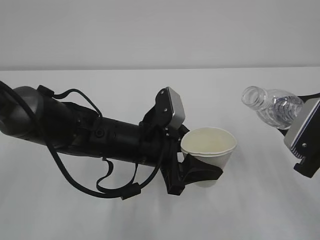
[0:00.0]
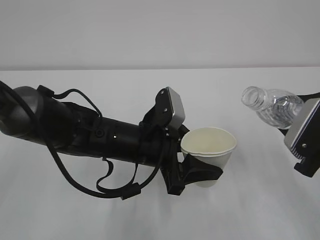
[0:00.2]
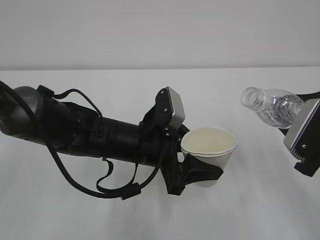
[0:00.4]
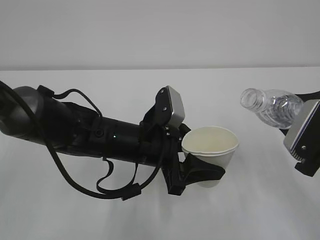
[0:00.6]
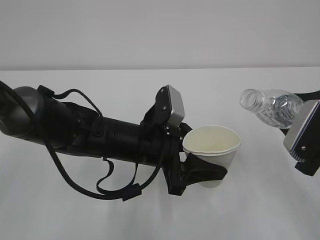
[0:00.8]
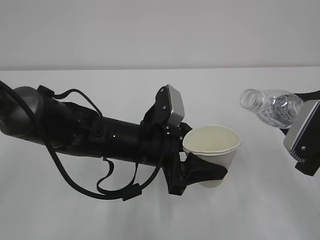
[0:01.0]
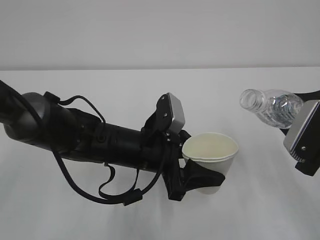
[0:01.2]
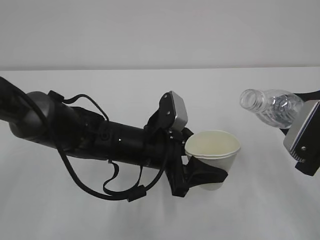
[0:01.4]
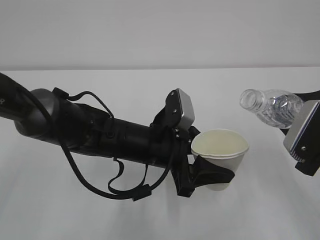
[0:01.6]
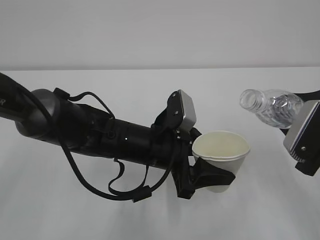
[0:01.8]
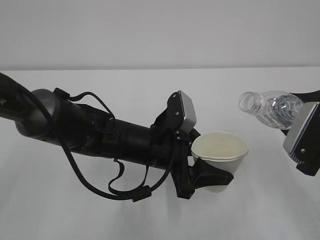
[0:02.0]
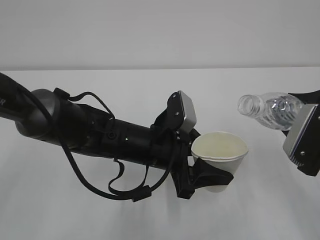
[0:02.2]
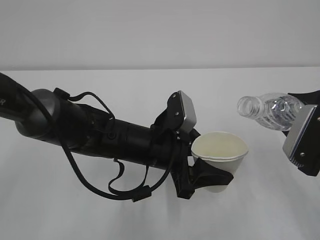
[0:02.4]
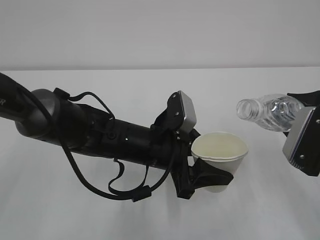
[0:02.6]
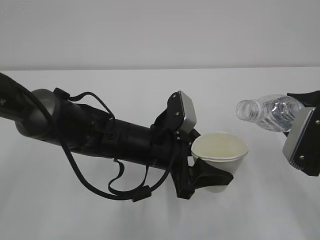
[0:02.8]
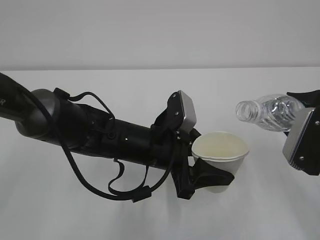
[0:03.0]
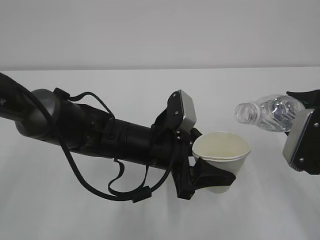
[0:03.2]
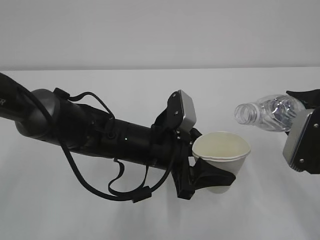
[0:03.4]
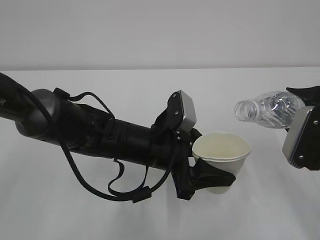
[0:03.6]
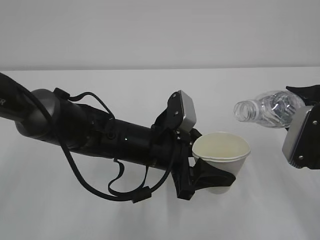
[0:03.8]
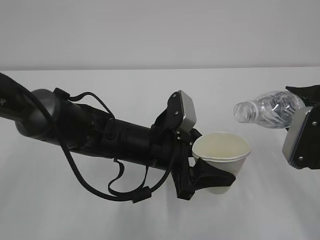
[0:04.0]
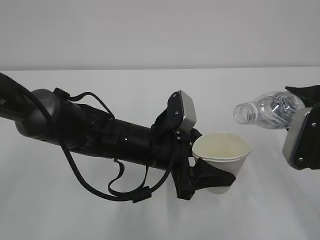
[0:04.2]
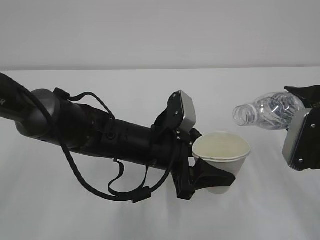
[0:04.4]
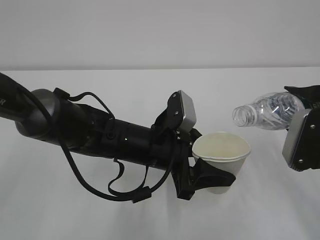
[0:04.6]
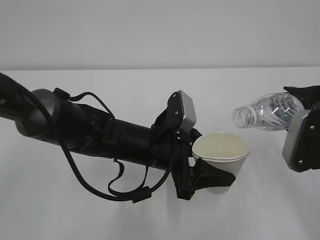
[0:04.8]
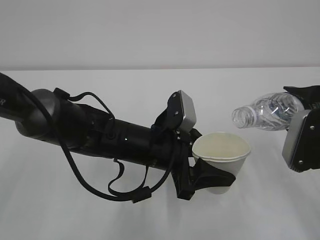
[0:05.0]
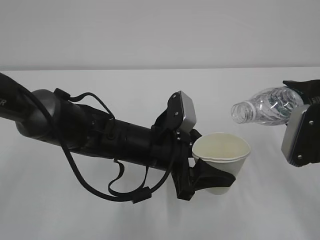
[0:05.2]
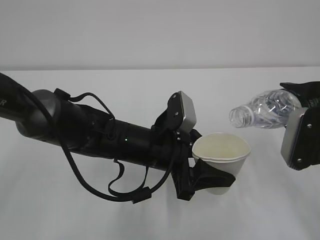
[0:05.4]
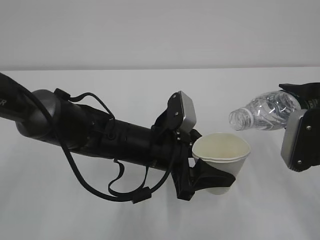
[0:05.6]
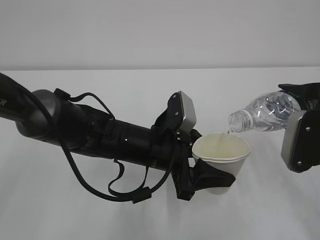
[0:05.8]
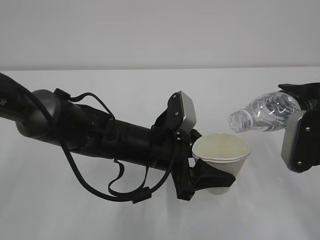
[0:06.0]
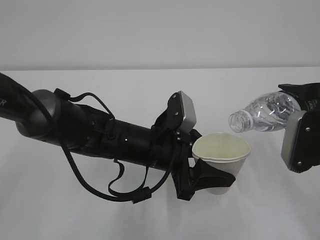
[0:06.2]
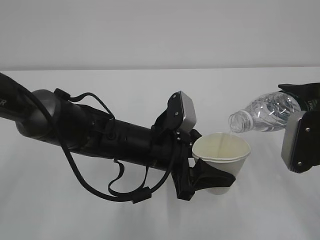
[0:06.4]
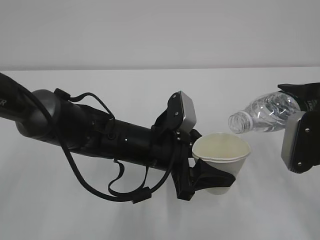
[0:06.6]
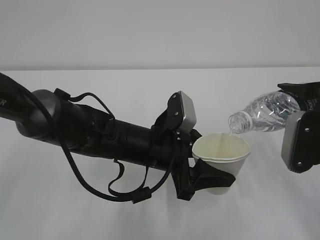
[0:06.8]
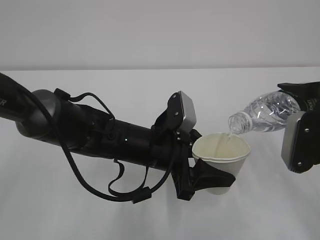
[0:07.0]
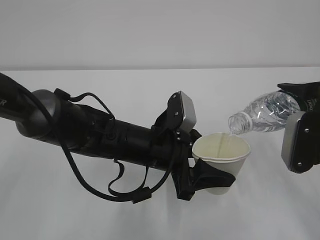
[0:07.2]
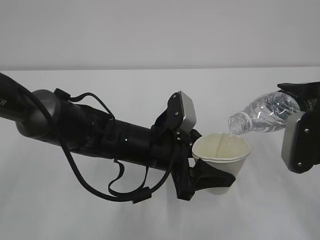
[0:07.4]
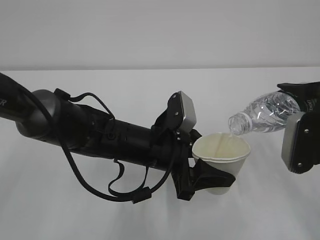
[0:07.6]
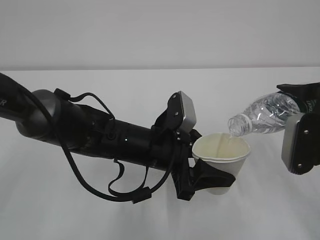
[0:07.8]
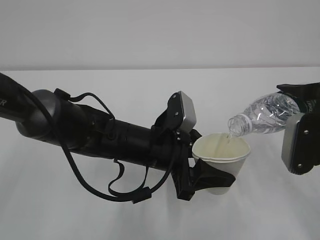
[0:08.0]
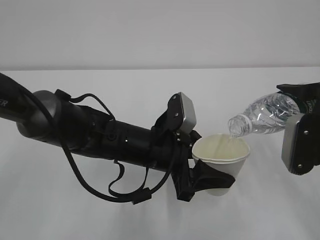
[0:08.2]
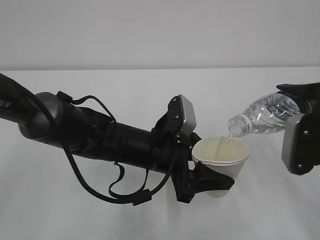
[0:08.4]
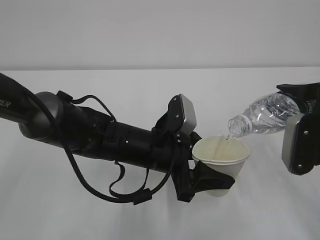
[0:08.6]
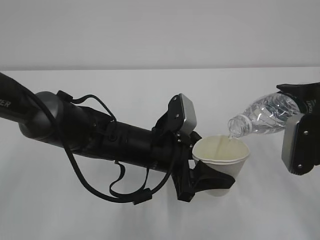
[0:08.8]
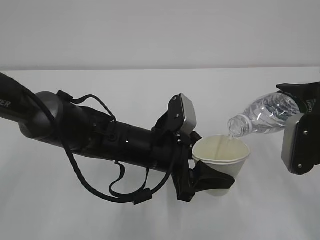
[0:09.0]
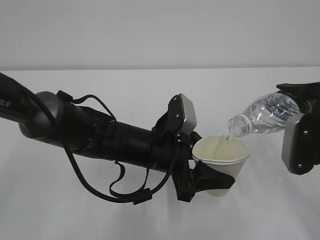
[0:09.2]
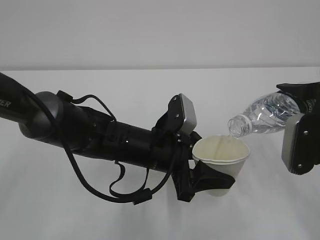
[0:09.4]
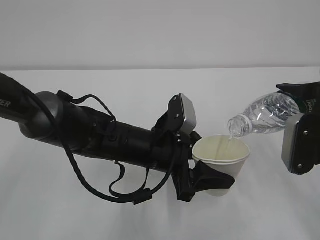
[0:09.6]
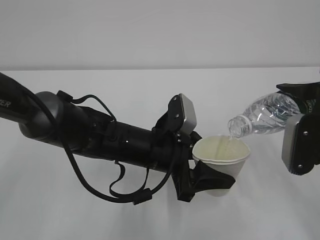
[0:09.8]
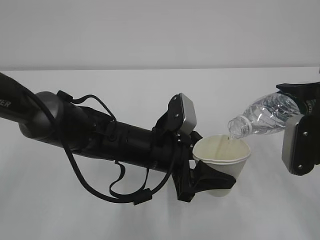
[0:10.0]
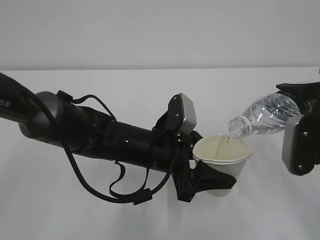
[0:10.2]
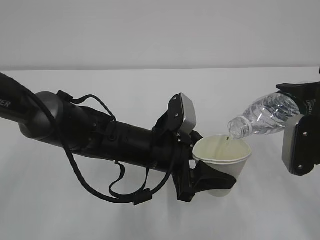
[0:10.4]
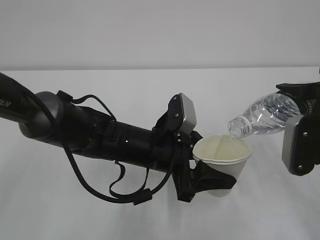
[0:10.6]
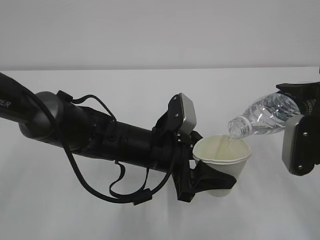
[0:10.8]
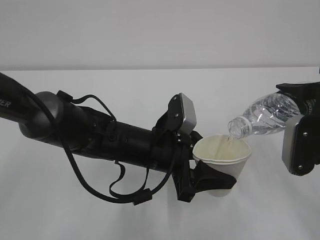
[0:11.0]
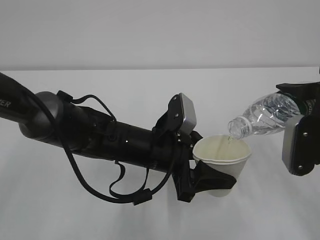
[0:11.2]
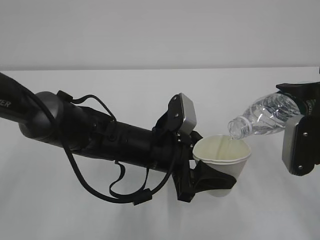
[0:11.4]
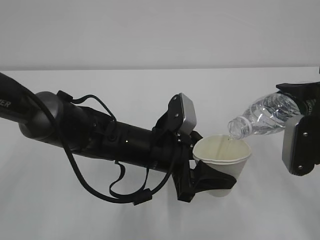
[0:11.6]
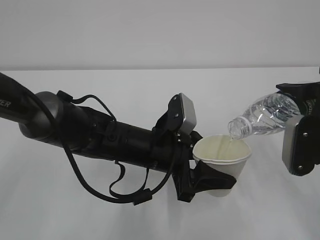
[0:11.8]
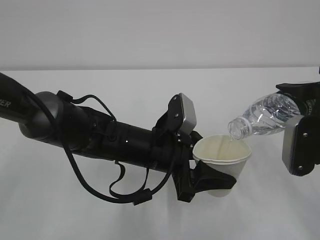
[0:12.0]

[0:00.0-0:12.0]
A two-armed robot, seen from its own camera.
0:00.0 to 0:03.0: There are only small adjustments of the grippers.
0:03.0 to 0:06.0: The grippers make only small movements.
0:06.0 to 0:09.0: Neither gripper changes place.
0:09.0 to 0:12.0: The two grippers keep their place.

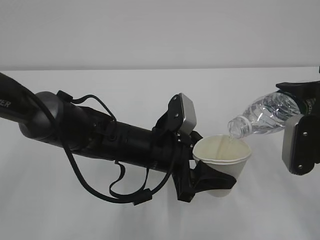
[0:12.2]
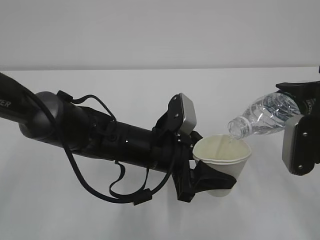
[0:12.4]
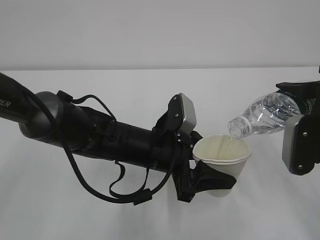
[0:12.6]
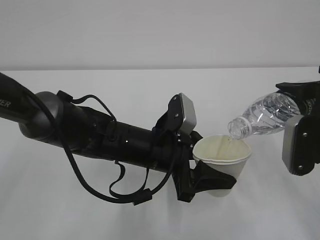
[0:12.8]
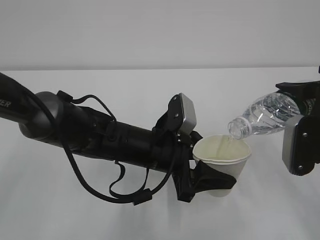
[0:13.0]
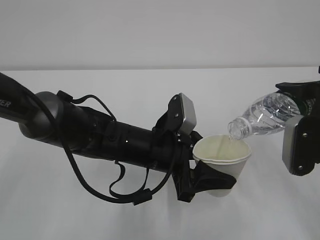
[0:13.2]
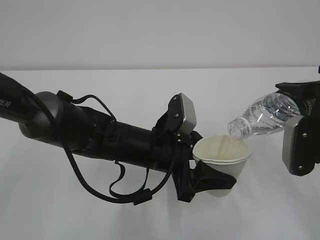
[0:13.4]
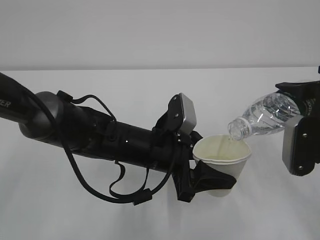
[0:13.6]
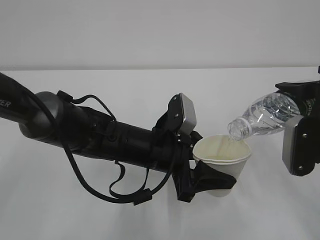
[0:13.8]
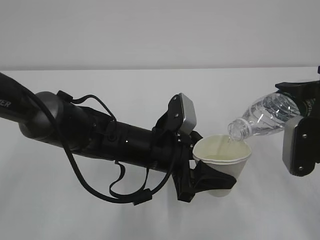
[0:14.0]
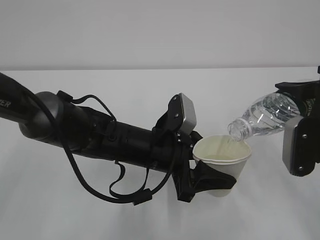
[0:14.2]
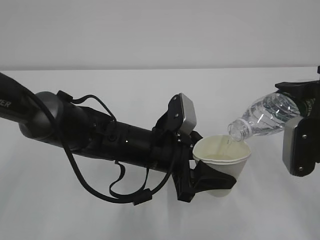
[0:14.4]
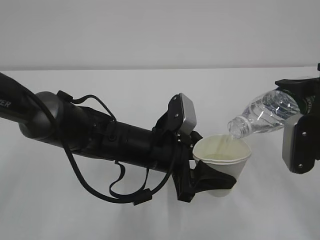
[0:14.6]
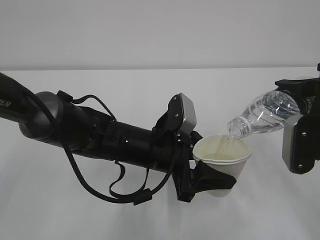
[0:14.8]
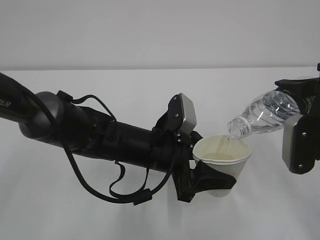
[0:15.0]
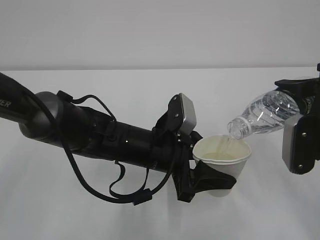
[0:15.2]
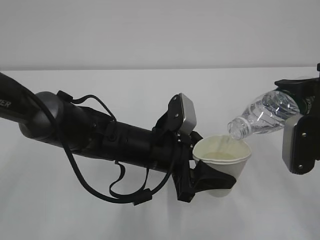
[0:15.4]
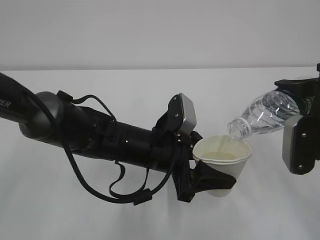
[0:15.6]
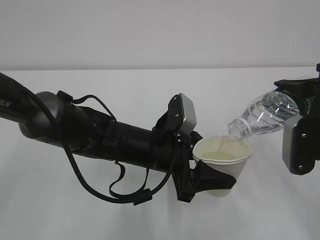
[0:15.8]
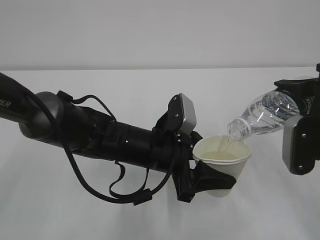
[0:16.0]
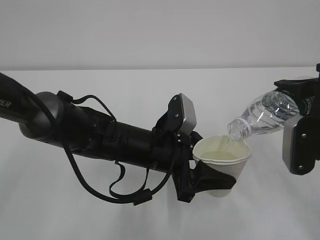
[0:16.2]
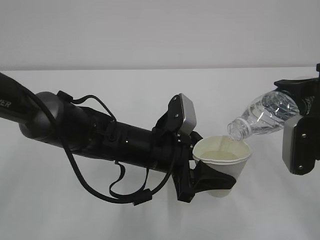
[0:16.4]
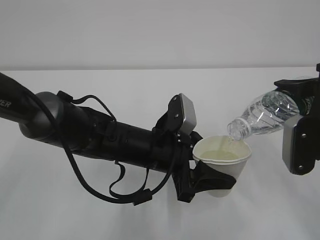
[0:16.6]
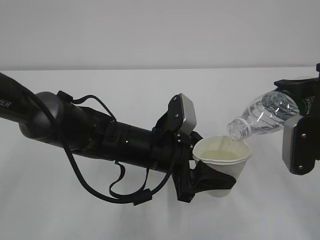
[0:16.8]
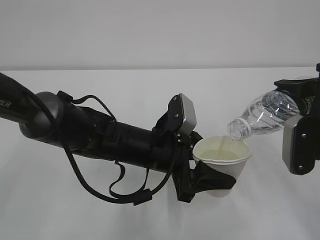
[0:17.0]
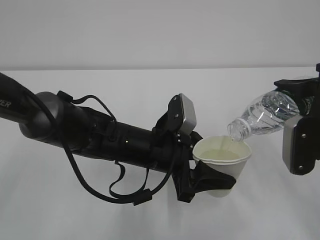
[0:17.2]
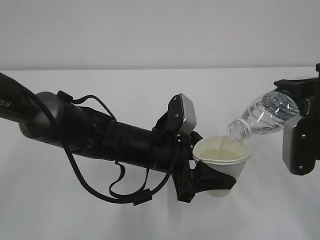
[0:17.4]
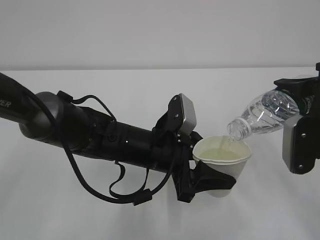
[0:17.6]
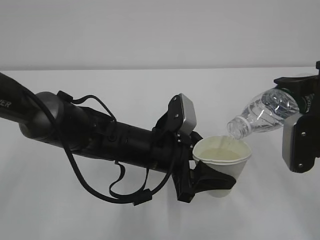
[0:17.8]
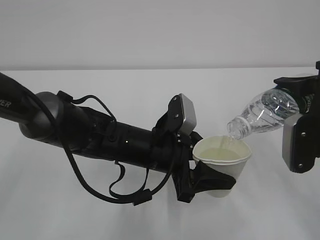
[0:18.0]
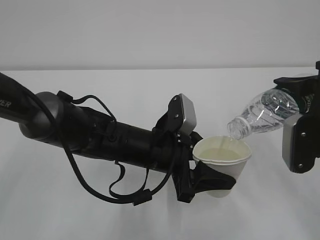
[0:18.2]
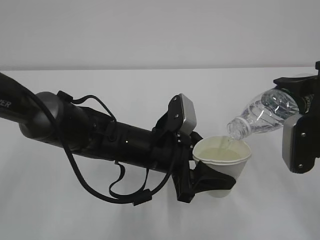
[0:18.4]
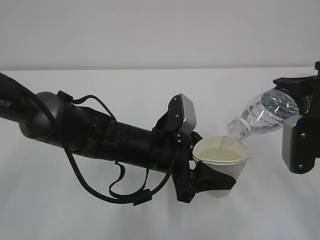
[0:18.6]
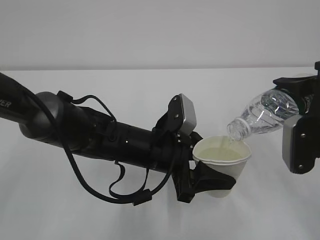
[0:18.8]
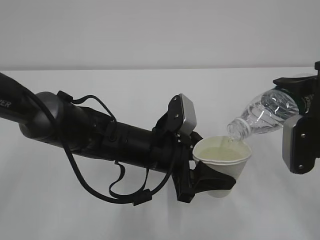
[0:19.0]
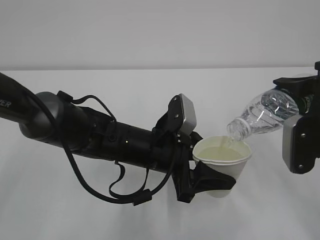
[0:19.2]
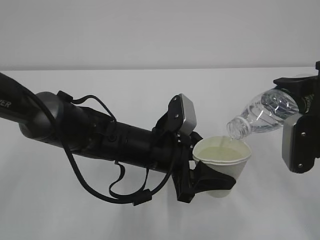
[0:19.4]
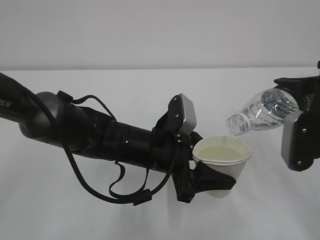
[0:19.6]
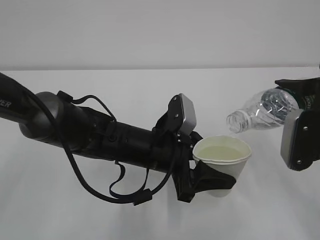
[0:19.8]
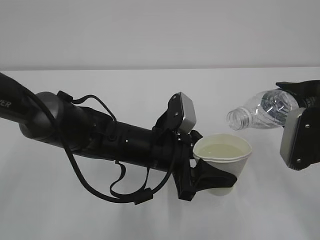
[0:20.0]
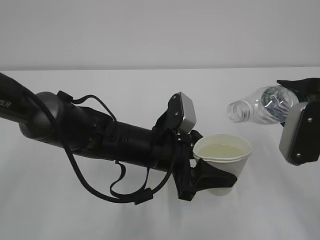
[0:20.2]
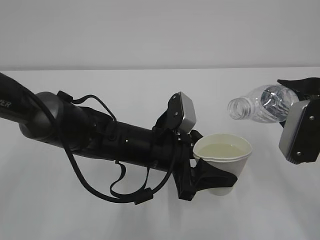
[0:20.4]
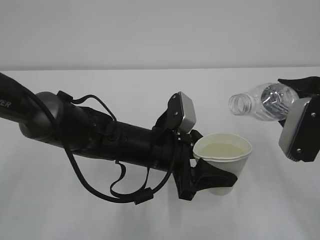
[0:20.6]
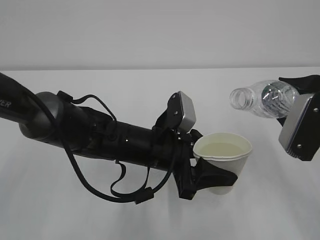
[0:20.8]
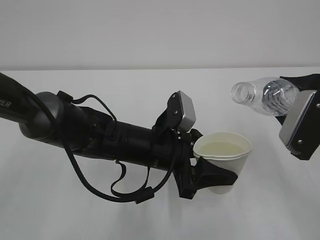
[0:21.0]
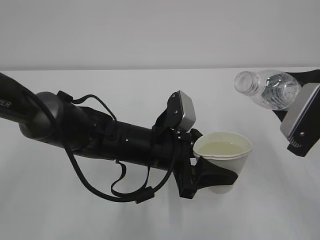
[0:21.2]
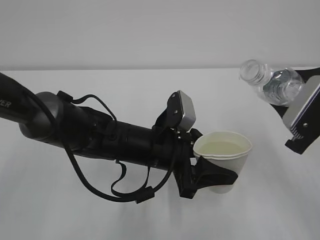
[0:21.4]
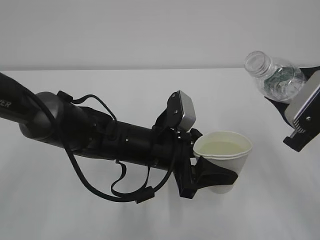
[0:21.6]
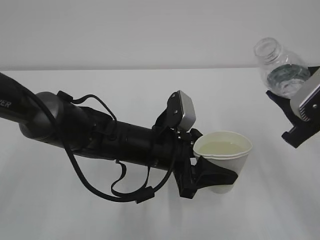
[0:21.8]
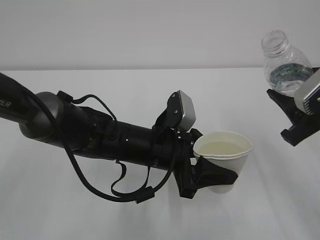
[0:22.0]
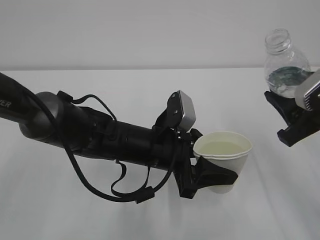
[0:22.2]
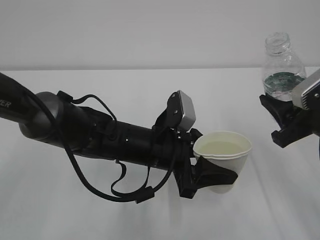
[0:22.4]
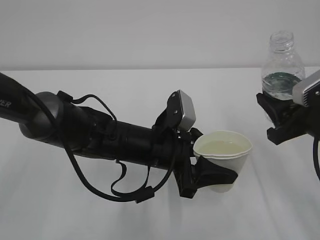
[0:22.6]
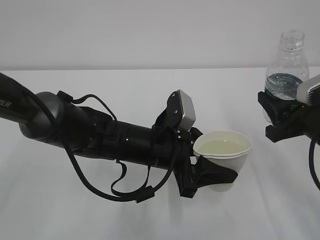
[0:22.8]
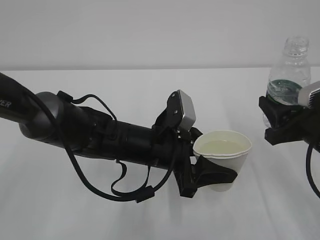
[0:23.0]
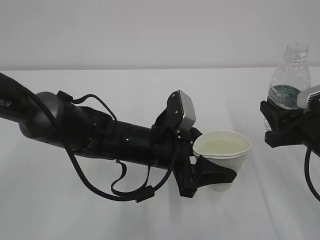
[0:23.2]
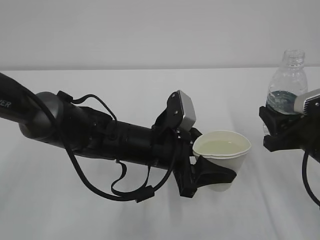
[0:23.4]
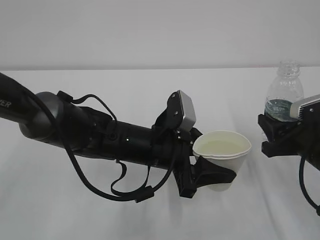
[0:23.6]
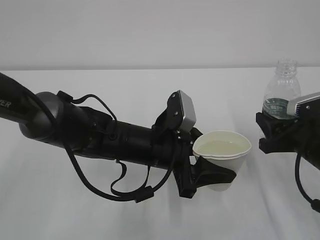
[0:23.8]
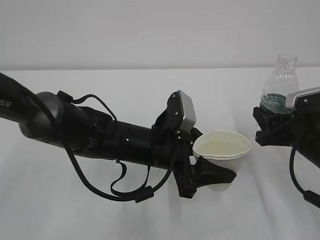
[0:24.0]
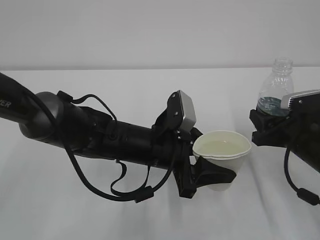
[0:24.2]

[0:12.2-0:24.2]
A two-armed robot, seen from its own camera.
0:12.2 to 0:16.6: Both grippers stay about where they are.
0:16.6 to 0:18.2: The two grippers keep their place.
0:18.2 to 0:19.8: The grippers move only a little.
0:22.6 to 0:24.2: The right gripper heads downward, covering some 5 cm.
